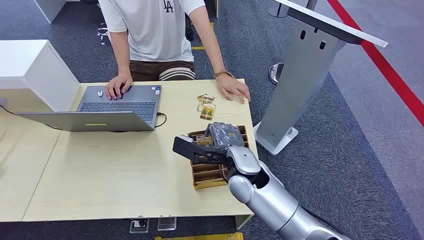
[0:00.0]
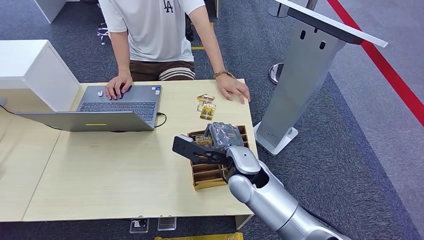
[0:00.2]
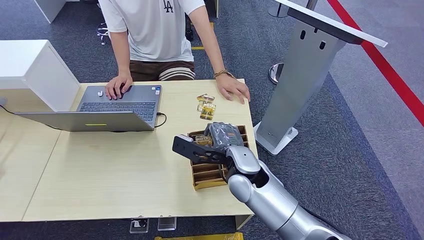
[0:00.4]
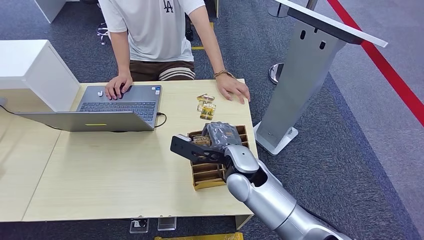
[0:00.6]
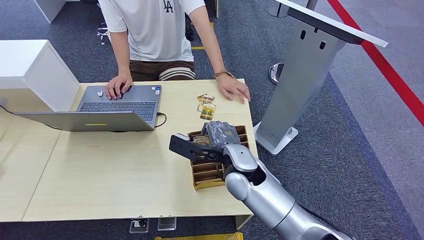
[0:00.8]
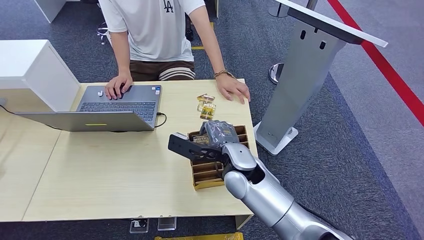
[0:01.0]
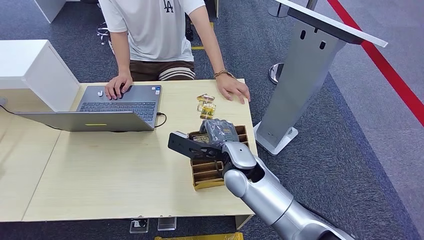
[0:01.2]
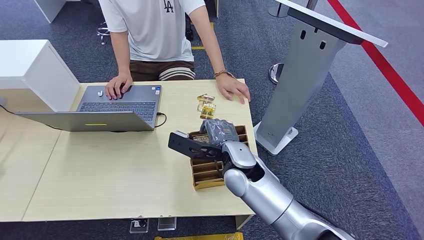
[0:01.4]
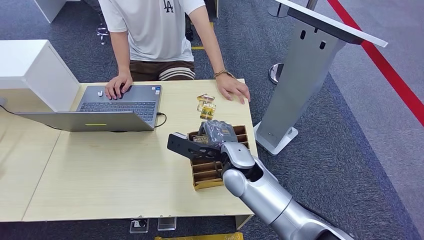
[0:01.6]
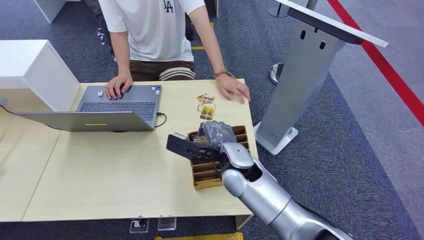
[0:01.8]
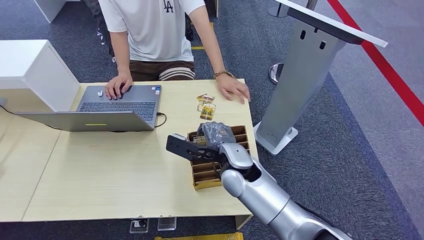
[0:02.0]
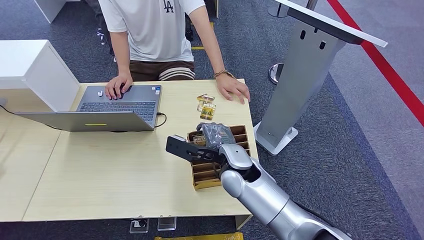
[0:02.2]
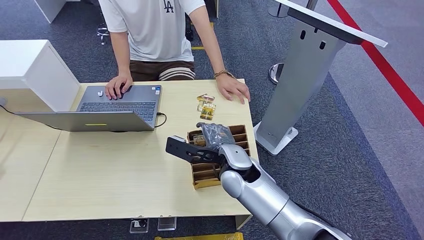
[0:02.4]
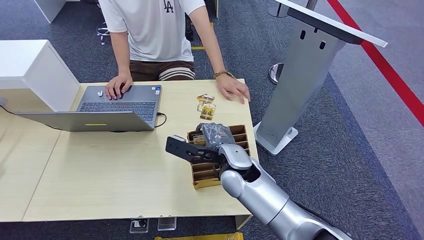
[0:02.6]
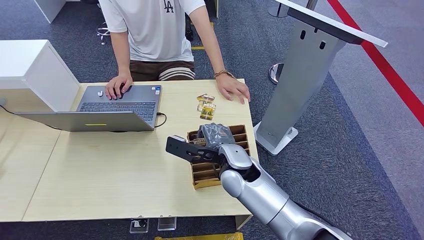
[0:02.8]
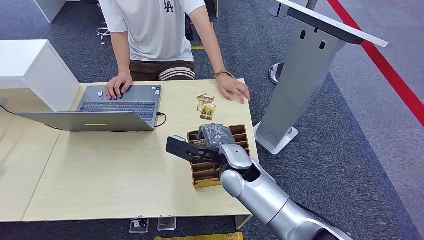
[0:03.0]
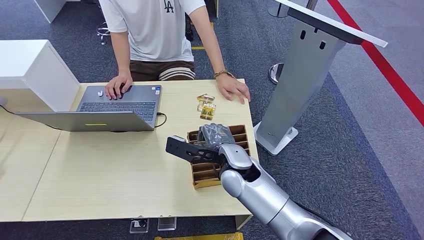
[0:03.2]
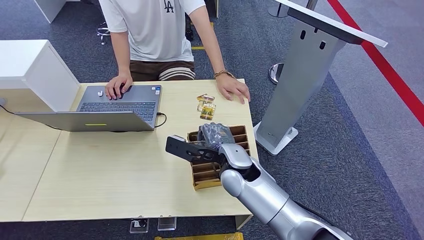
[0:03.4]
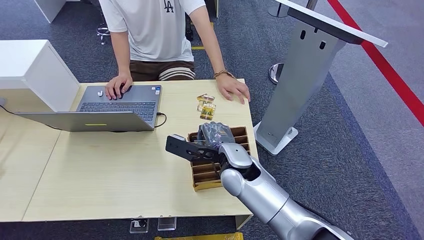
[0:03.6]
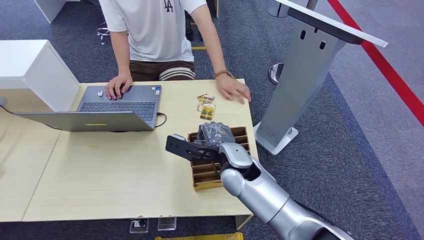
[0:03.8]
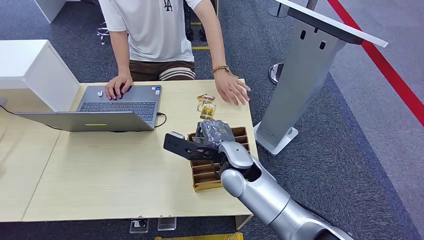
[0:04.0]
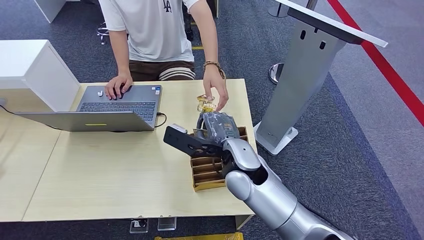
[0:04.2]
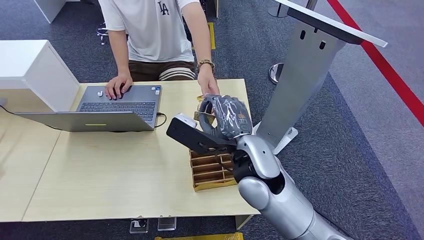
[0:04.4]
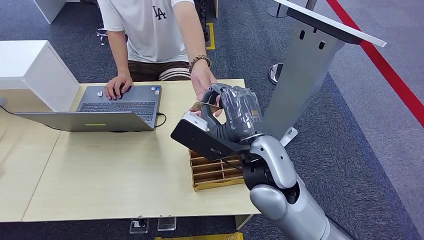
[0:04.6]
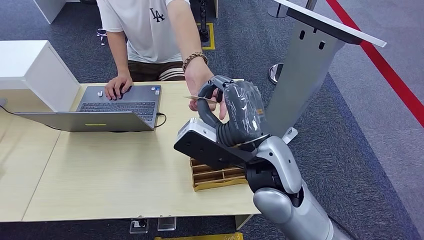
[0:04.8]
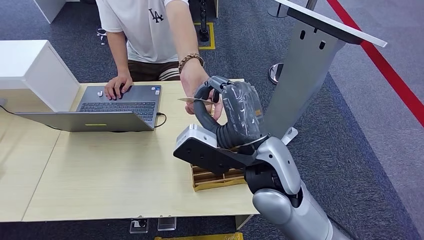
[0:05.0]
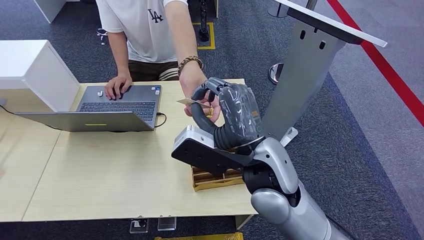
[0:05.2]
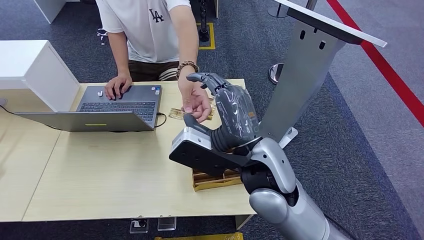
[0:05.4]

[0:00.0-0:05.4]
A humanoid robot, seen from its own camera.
Step, 0:00.0 to 0:04.2: Pick up the key card from the card box.
Step, 0:04.6 to 0:05.4: Hand the key card to the target.
0:01.4 to 0:04.0: Neither hand changes place.
0:04.0 to 0:05.4: The right hand shifts approximately 15 cm upward and backward.

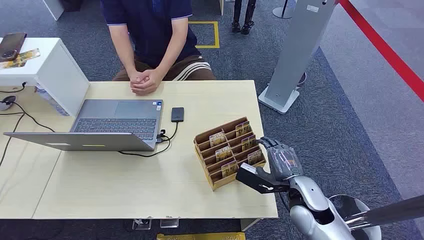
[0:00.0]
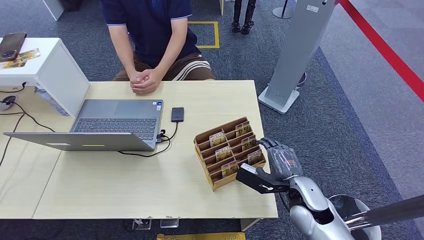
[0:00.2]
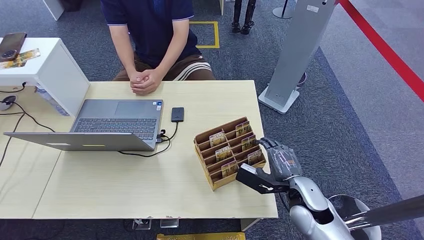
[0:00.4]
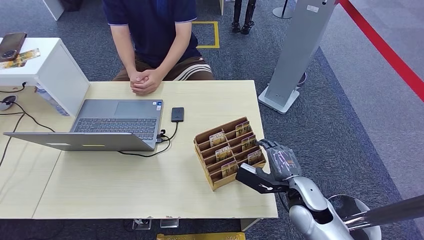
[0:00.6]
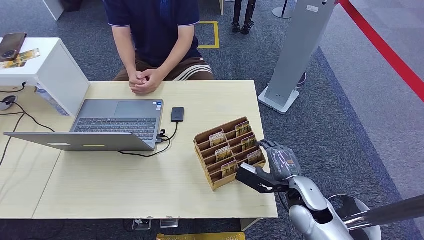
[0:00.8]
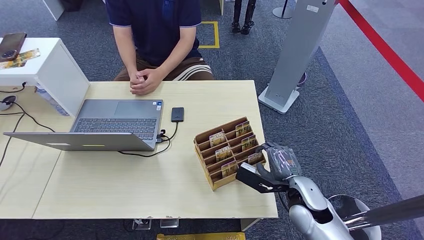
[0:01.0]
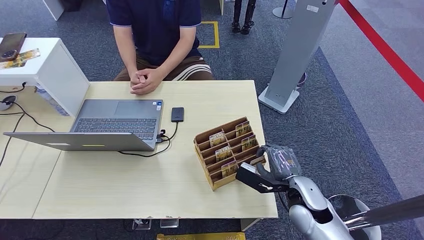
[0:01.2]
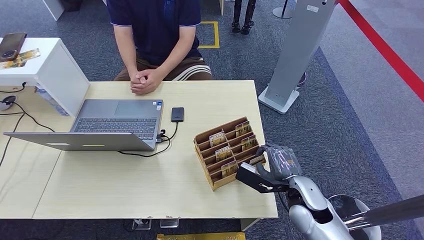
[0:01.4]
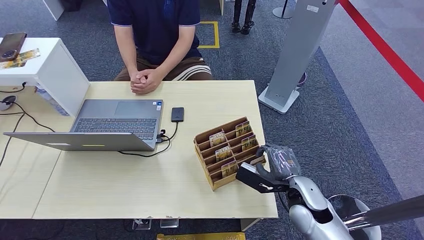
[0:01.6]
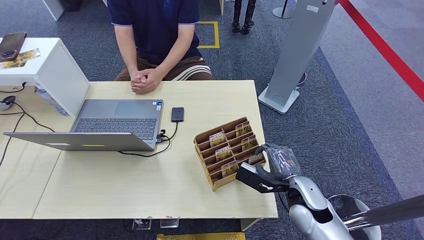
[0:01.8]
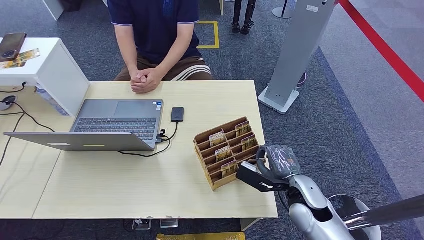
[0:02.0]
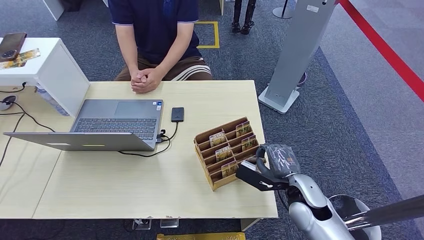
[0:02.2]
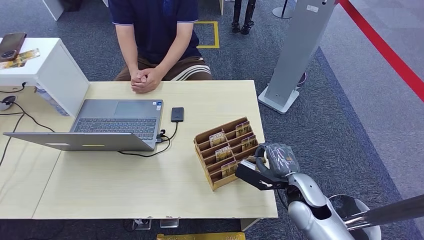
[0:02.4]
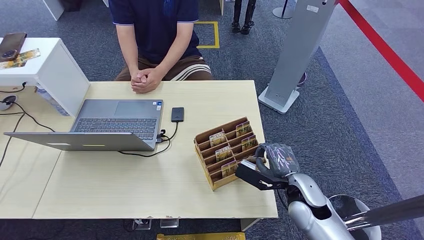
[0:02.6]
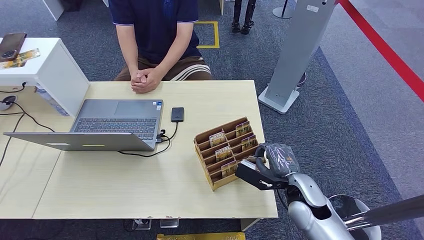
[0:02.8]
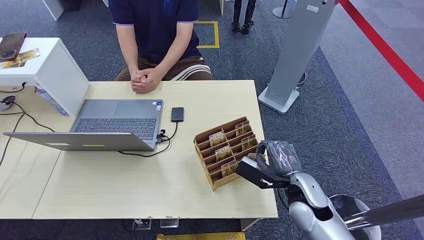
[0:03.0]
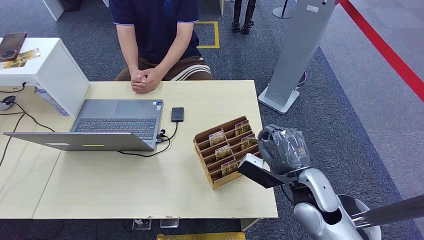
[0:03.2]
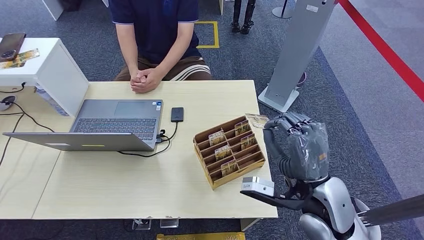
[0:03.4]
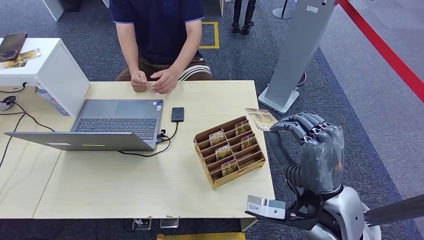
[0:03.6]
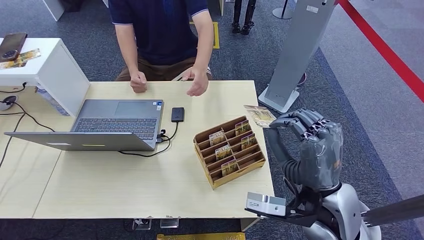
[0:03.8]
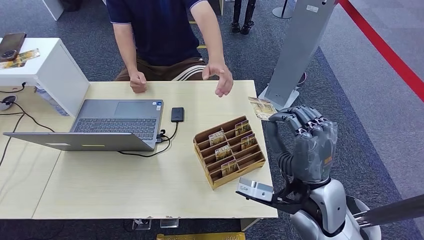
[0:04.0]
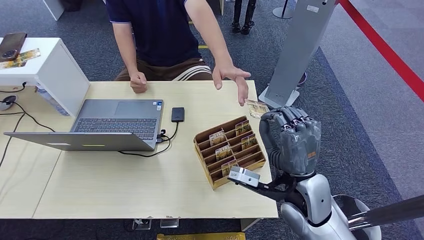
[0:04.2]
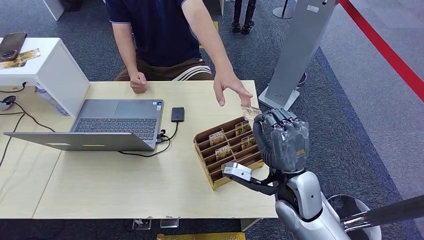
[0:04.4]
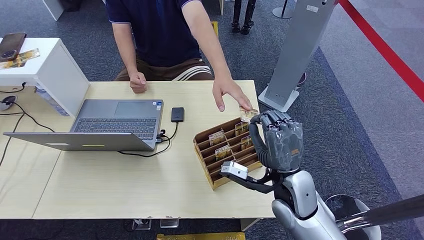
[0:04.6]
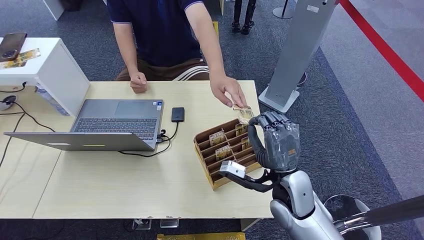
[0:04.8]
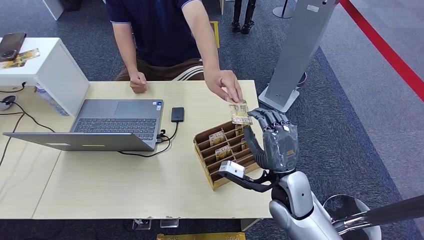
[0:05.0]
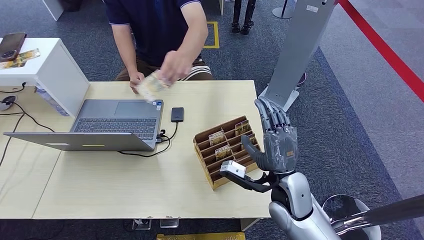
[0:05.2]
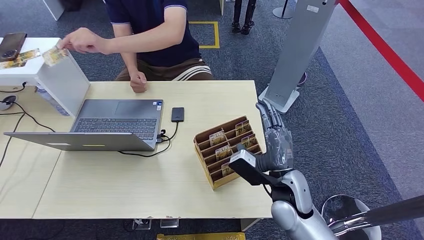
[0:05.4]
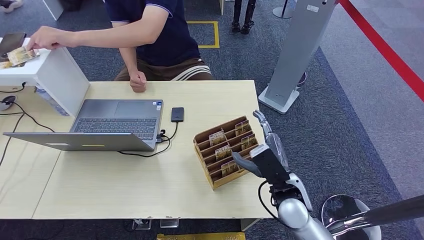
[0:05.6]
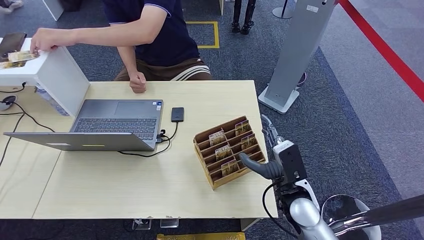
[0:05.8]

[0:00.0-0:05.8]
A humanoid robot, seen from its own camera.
Step, 0:00.0 to 0:02.0: Pick up the key card from the card box.
Step, 0:02.4 to 0:05.8: Hand the key card to the target.
0:01.4 to 0:02.8: Both hands stay put.
0:02.8 to 0:04.4: The right hand shifts approximately 10 cm upward and to the left.
0:04.4 to 0:05.8: The right hand travels downward by roughly 5 cm.
